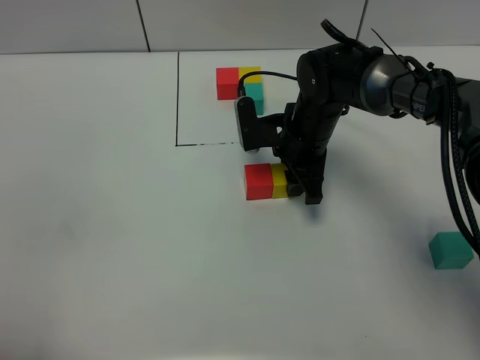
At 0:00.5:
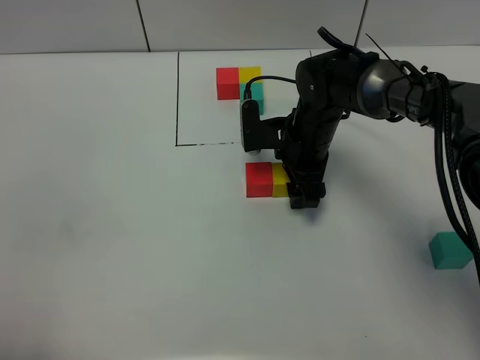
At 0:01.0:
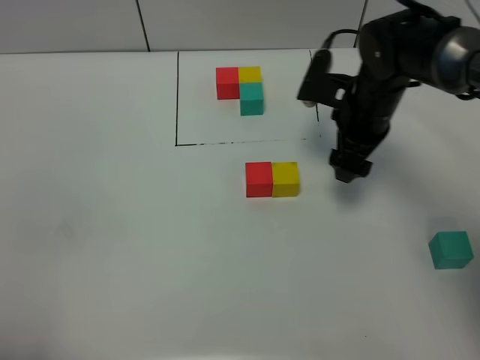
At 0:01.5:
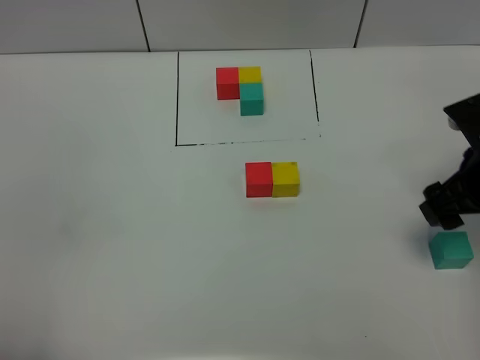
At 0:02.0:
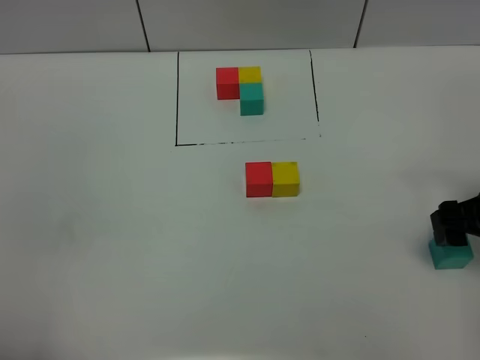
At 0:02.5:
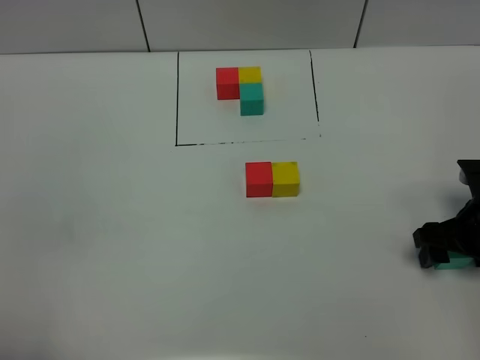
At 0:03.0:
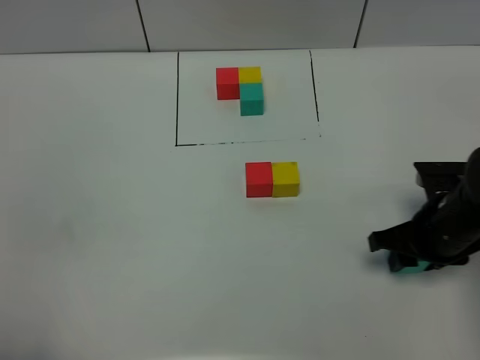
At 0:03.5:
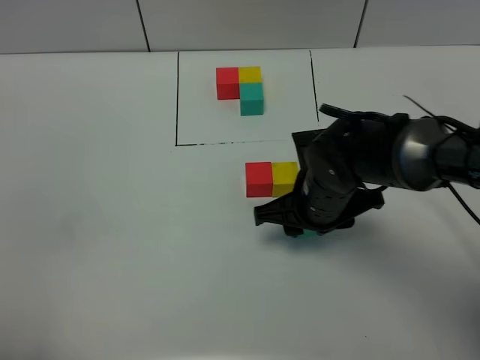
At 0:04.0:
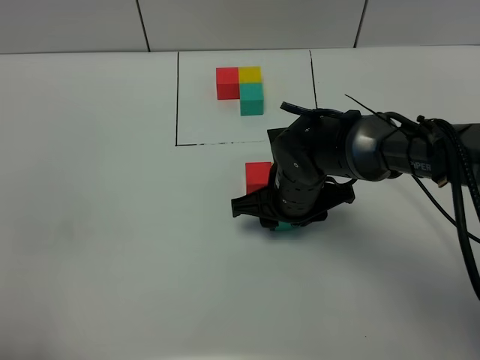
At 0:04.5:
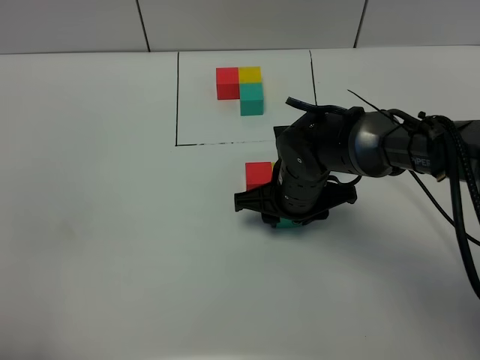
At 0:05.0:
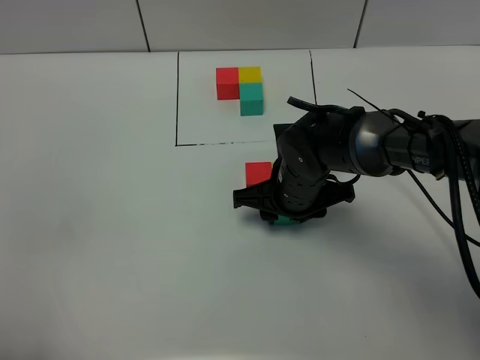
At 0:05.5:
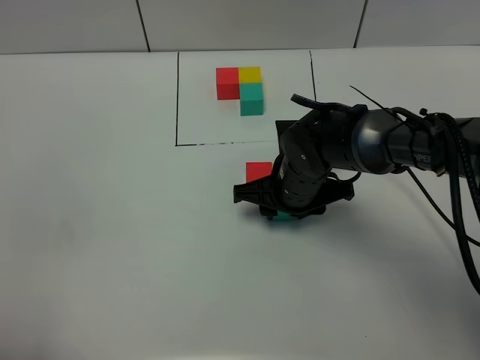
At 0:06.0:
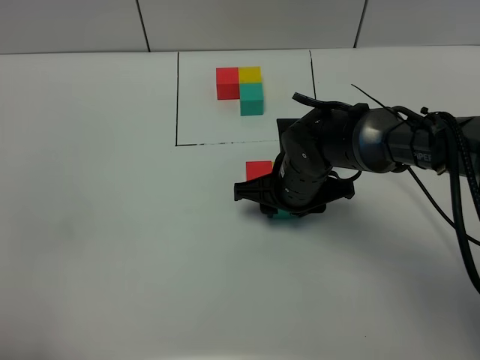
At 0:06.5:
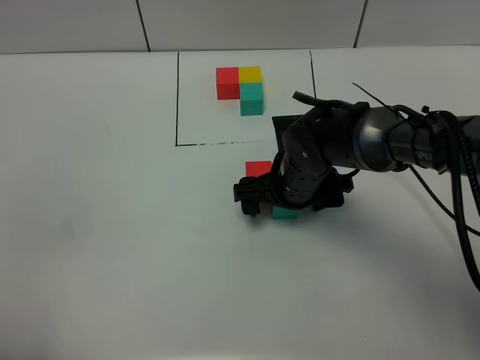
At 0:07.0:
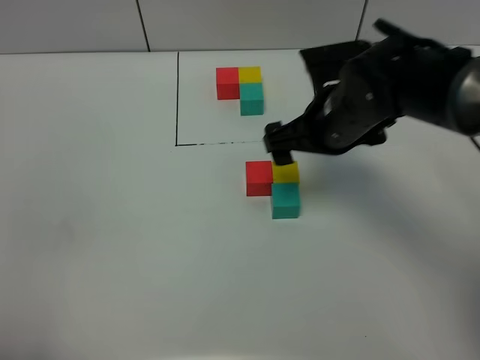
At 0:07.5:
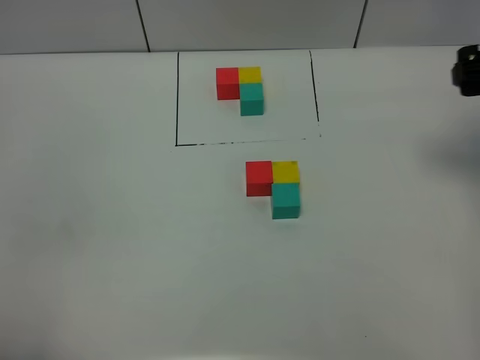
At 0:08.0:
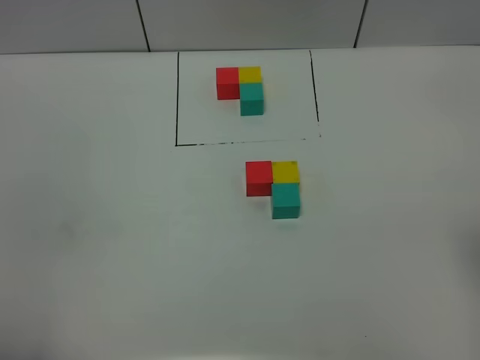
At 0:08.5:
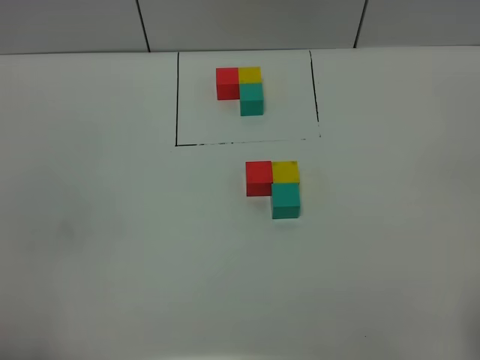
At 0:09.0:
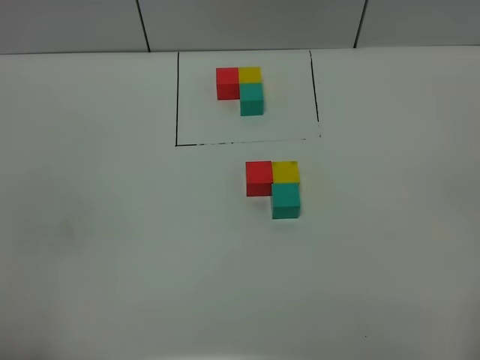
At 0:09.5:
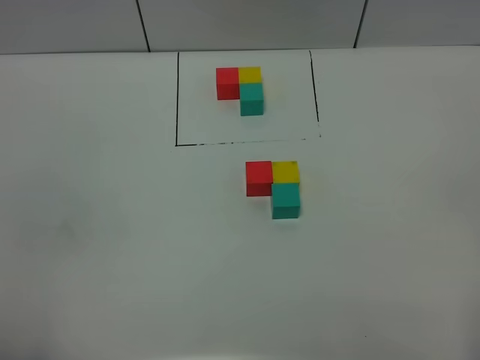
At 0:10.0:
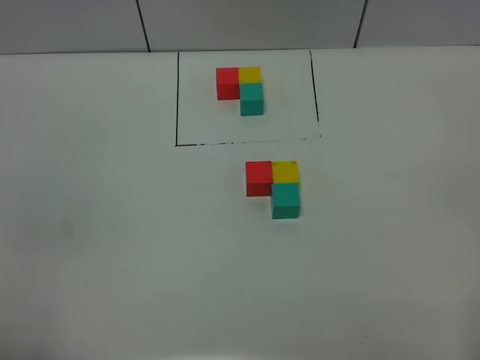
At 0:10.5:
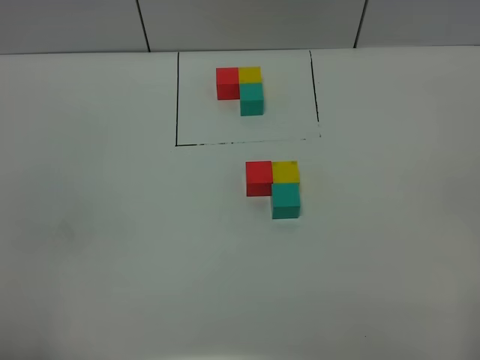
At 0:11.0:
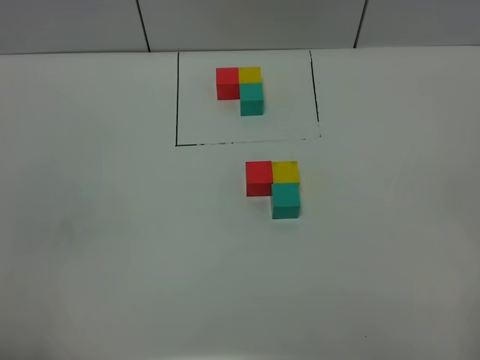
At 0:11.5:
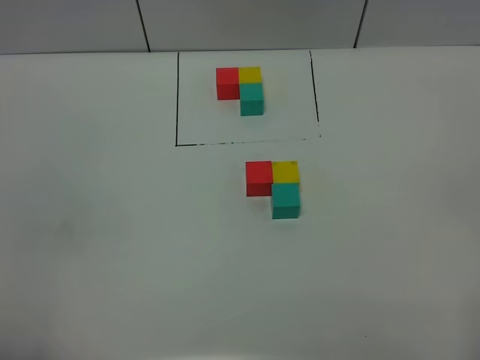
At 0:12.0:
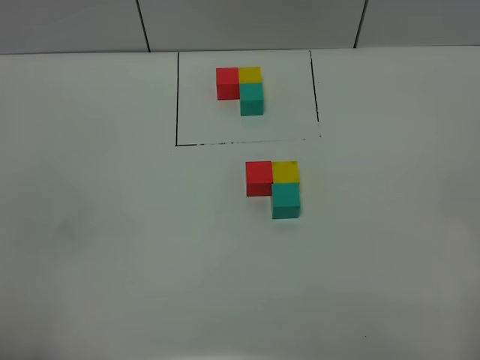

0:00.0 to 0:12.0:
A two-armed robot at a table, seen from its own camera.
Task of the whole recording: According to the building block template in front, assemble the scattered blocks together.
Step, 0:01.0 to 0:06.5: Put the green build block on the behind of the yellow build block.
0:00.0 to 0:02.0: The right gripper shifts about 25 cm to the right and backward, and opens.
0:02.0 to 0:04.0: The right gripper shifts some 25 cm to the left, and closes.
0:04.0 to 0:06.0: There are only small adjustments of the grippers.
0:06.0 to 0:08.0: The right gripper goes roughly 35 cm to the right, upward and backward, and opens up.
0:10.0 to 0:12.0: Both grippers stay put.
